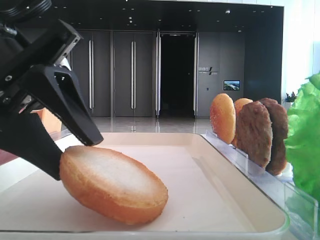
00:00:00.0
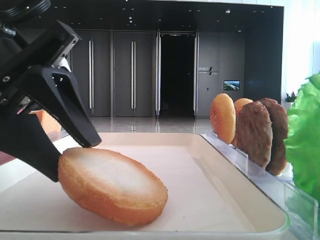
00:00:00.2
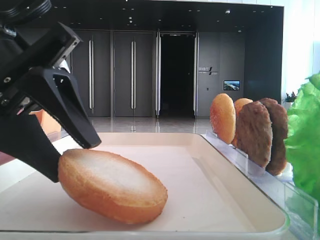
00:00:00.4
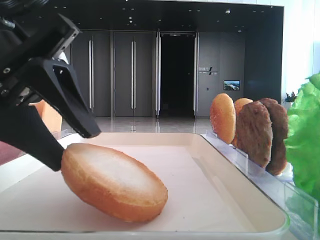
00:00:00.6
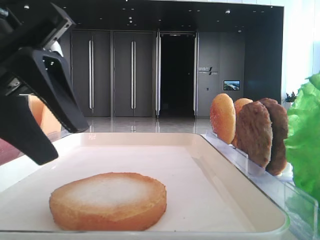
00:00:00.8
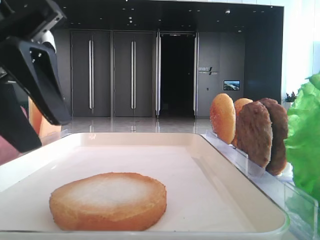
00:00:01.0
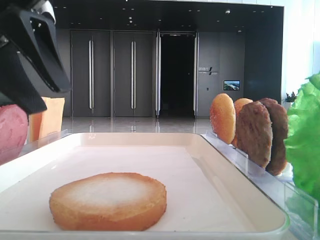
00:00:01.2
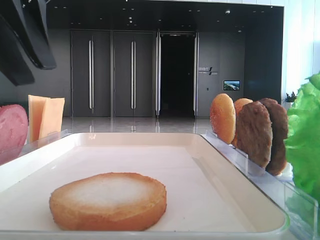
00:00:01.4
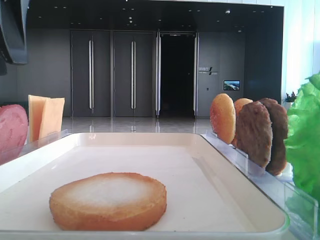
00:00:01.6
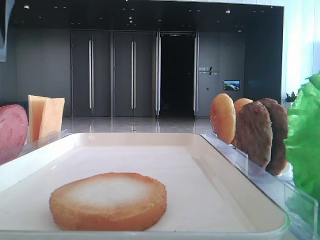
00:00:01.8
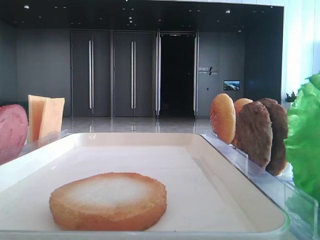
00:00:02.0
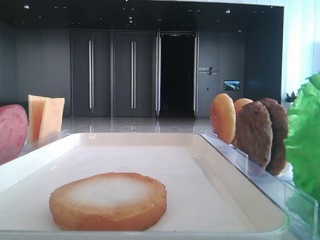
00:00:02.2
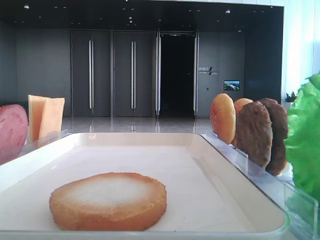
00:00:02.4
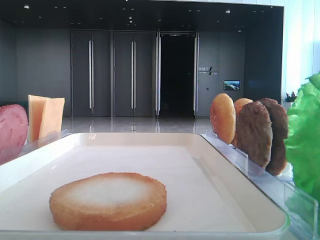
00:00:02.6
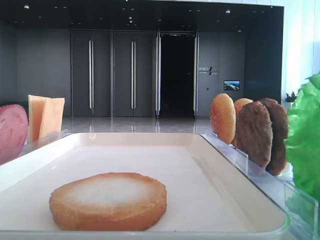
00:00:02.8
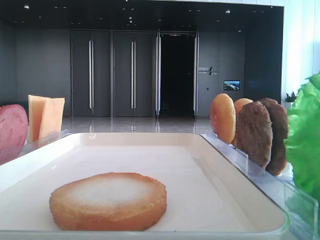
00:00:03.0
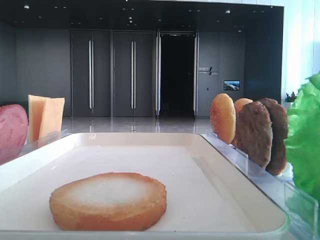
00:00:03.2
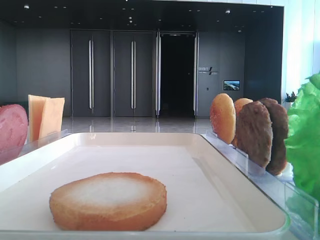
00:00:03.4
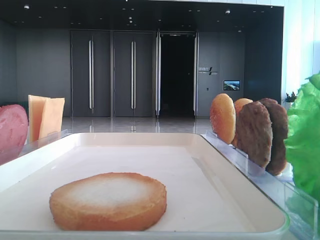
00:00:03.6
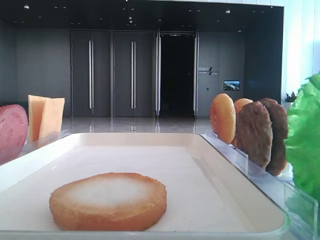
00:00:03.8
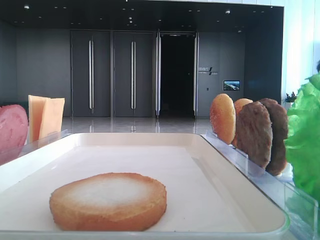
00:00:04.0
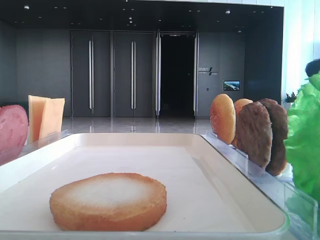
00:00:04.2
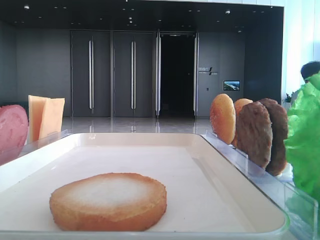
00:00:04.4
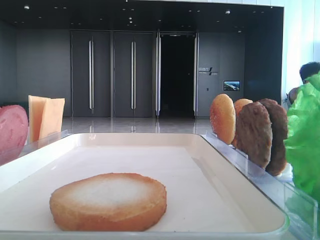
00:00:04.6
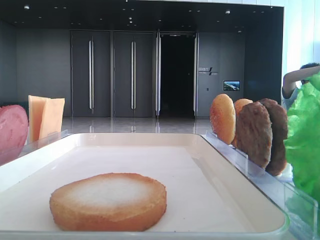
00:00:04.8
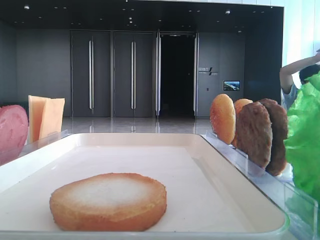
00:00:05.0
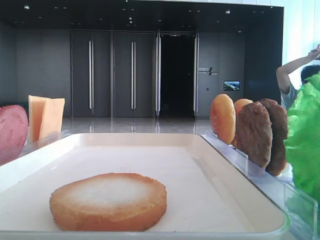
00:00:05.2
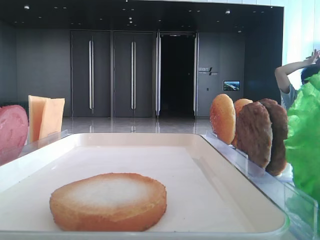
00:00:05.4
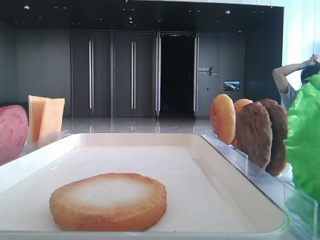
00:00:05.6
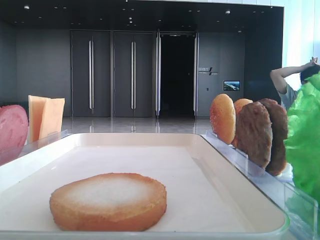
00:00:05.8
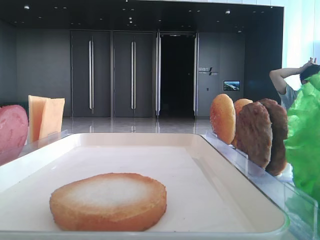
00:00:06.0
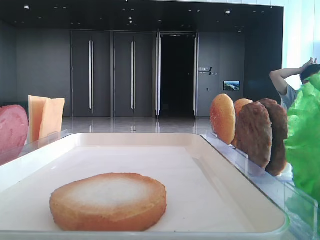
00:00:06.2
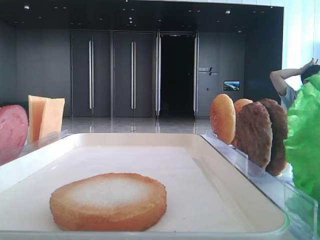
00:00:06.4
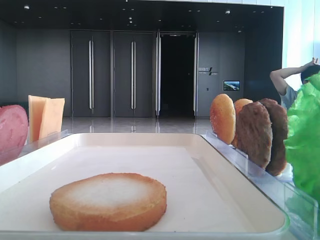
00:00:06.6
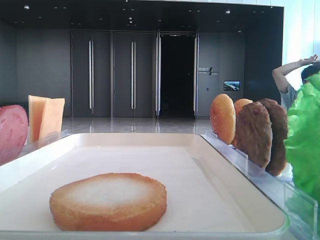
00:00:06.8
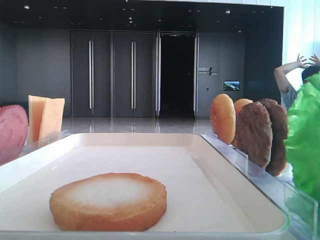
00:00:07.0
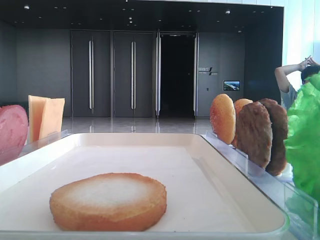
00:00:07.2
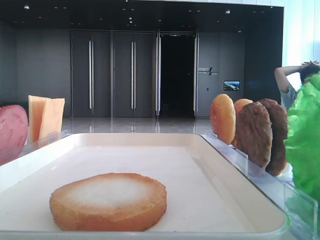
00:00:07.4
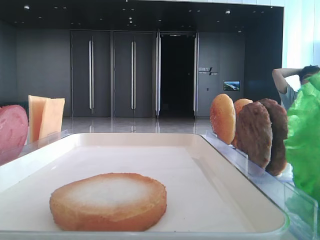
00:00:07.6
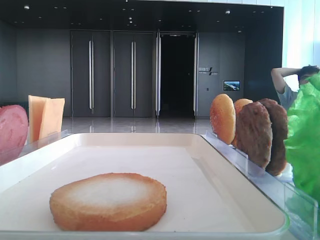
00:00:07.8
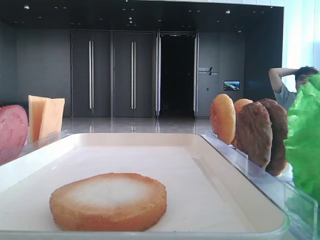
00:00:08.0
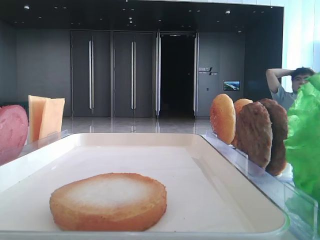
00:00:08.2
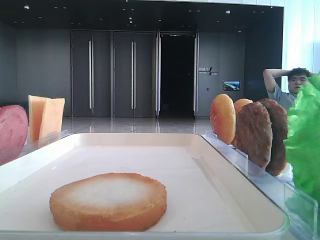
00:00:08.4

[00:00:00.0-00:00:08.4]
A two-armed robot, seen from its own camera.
00:00:00.0 to 00:00:01.4: The left gripper travels upward by about 10 cm.
00:00:01.4 to 00:00:02.8: The left gripper moves to the left, about 15 cm.
00:00:07.0 to 00:00:08.4: Neither gripper changes place.
